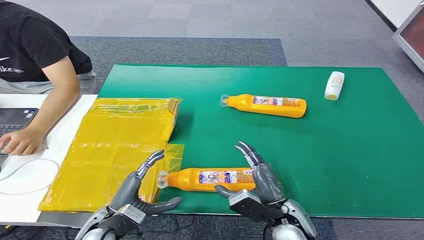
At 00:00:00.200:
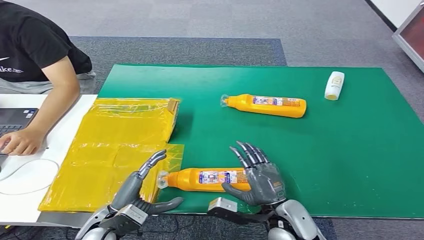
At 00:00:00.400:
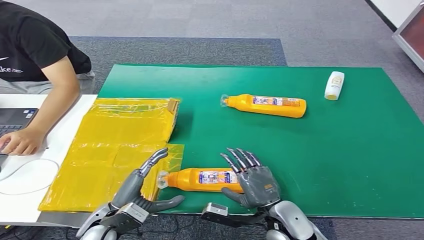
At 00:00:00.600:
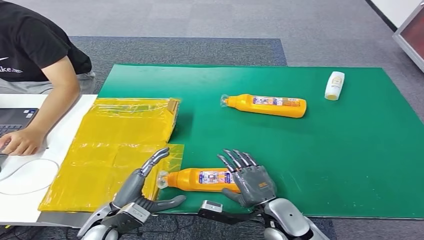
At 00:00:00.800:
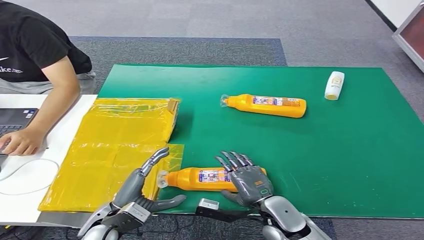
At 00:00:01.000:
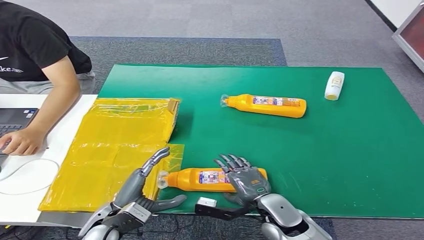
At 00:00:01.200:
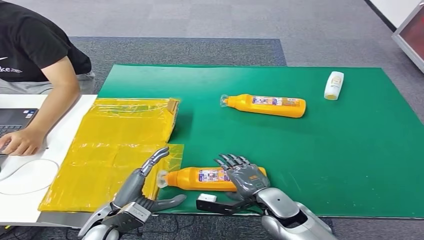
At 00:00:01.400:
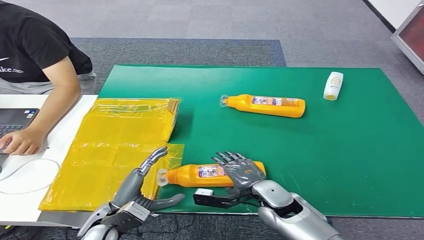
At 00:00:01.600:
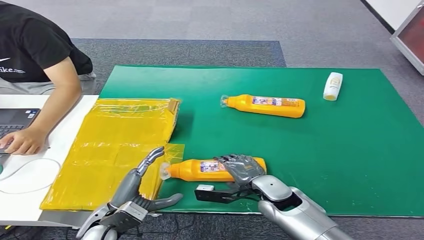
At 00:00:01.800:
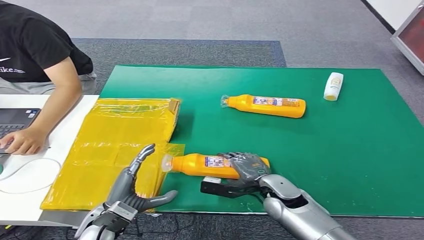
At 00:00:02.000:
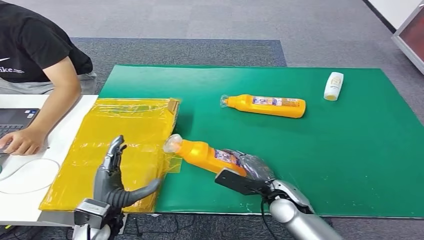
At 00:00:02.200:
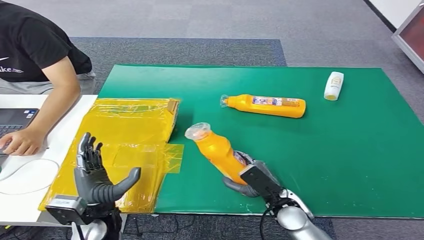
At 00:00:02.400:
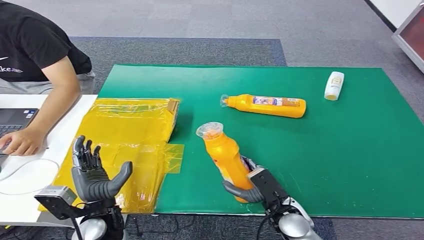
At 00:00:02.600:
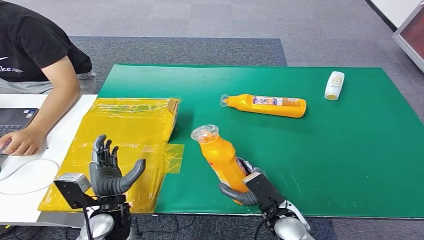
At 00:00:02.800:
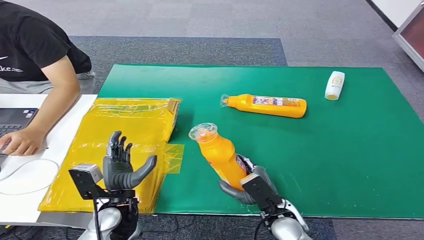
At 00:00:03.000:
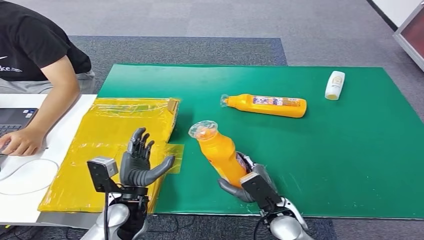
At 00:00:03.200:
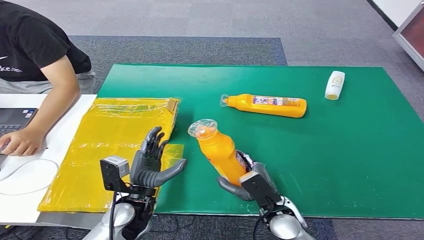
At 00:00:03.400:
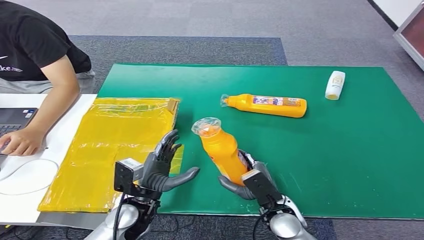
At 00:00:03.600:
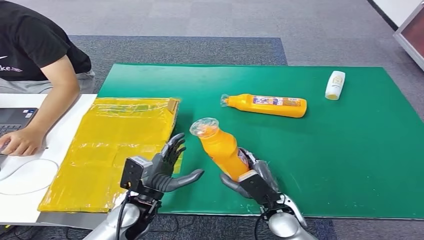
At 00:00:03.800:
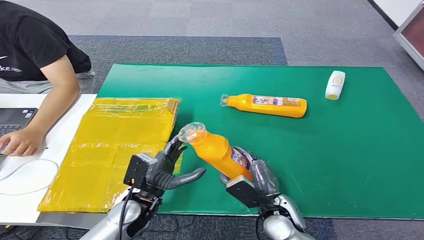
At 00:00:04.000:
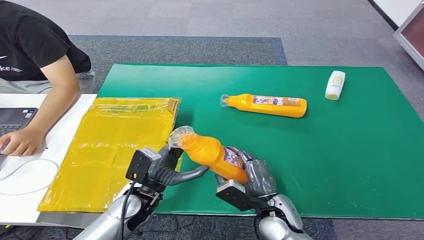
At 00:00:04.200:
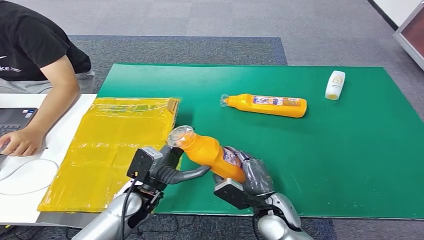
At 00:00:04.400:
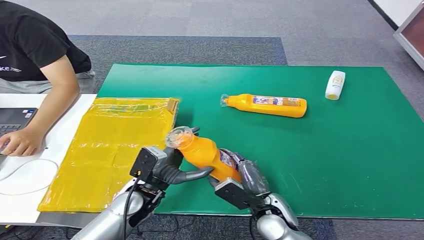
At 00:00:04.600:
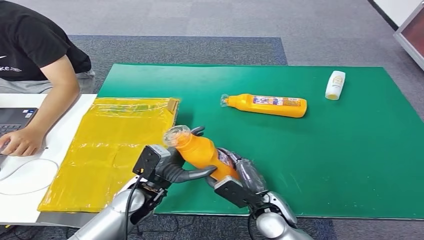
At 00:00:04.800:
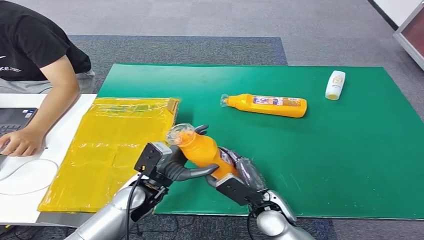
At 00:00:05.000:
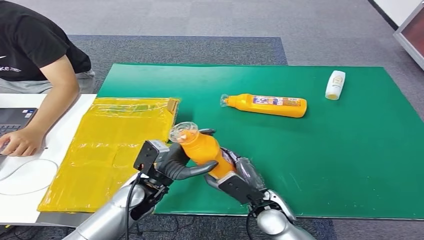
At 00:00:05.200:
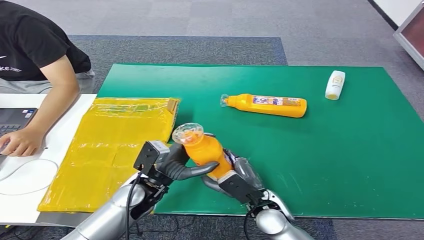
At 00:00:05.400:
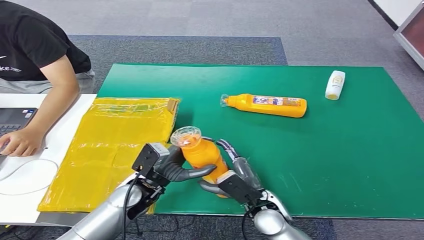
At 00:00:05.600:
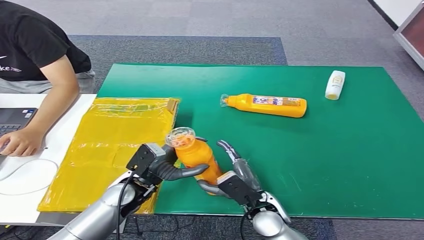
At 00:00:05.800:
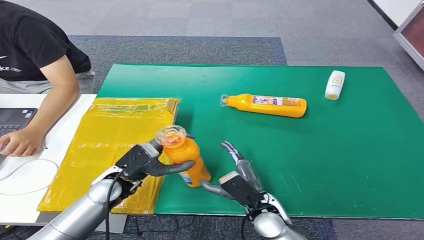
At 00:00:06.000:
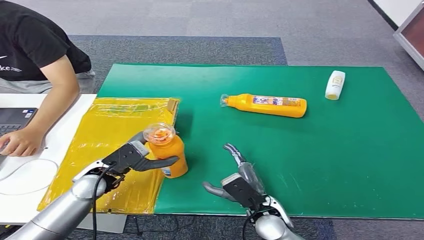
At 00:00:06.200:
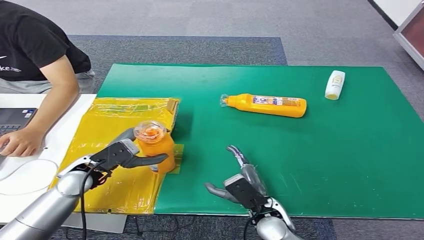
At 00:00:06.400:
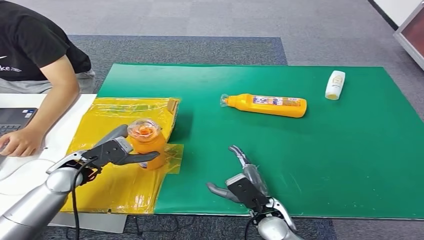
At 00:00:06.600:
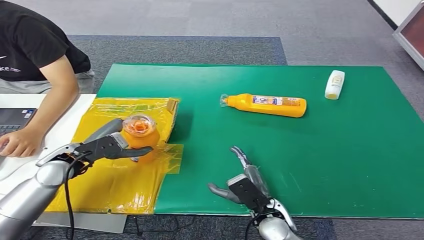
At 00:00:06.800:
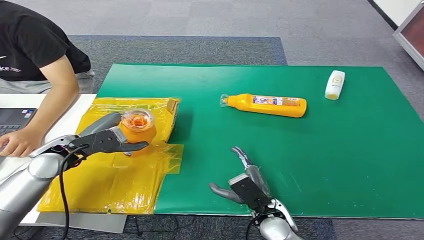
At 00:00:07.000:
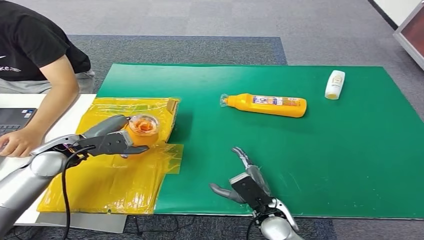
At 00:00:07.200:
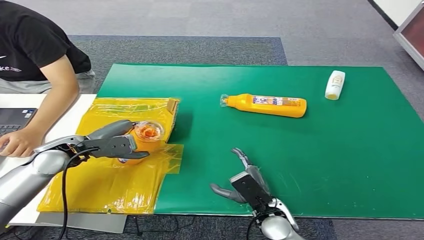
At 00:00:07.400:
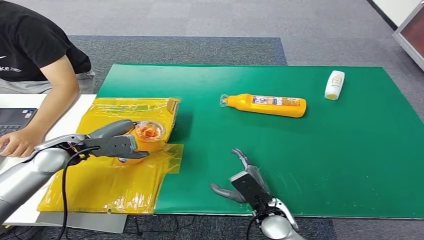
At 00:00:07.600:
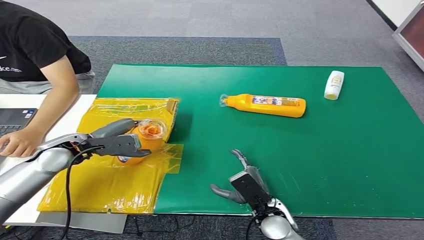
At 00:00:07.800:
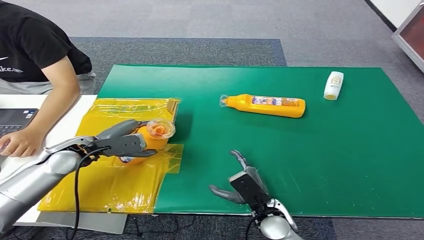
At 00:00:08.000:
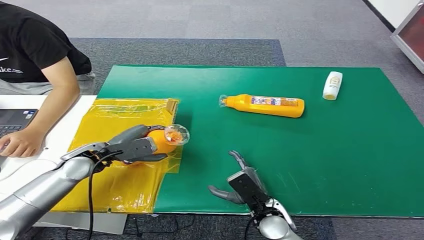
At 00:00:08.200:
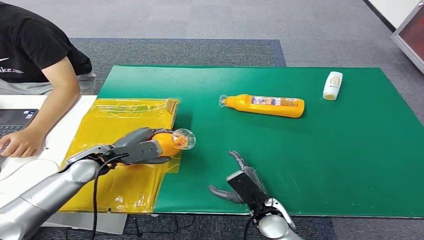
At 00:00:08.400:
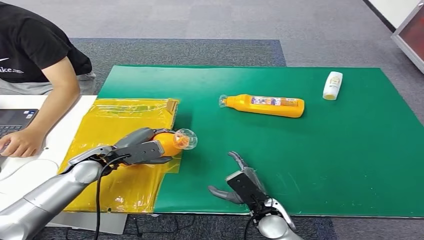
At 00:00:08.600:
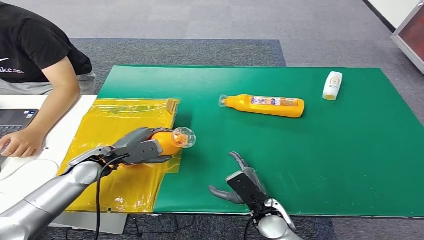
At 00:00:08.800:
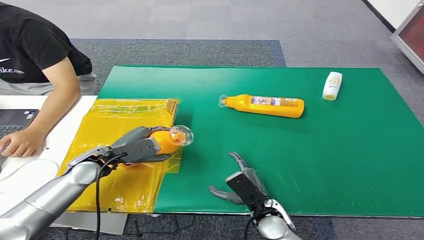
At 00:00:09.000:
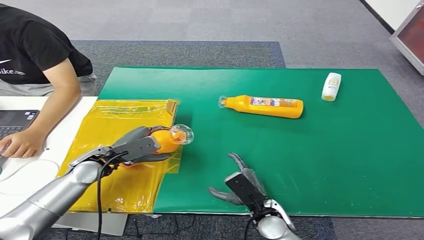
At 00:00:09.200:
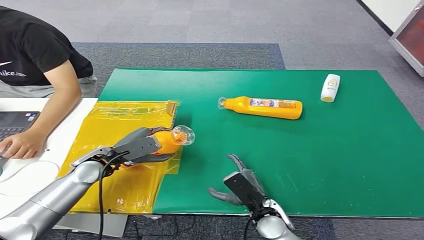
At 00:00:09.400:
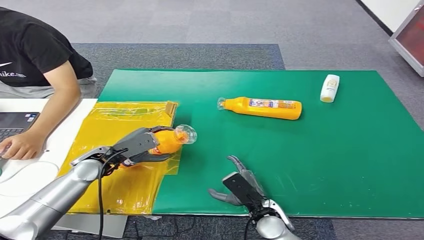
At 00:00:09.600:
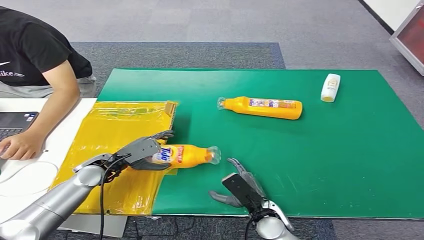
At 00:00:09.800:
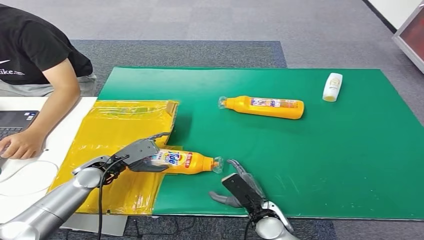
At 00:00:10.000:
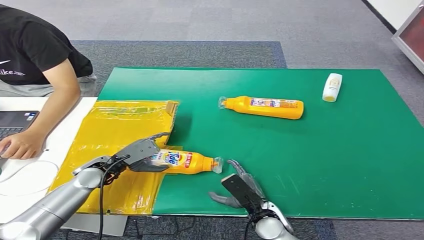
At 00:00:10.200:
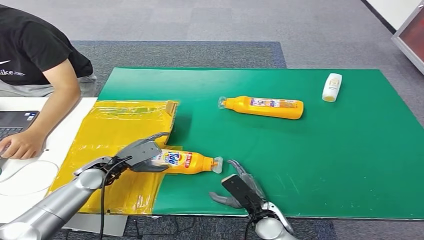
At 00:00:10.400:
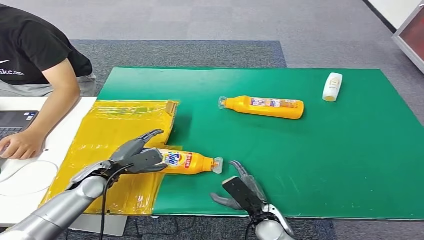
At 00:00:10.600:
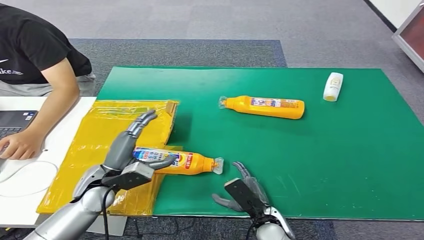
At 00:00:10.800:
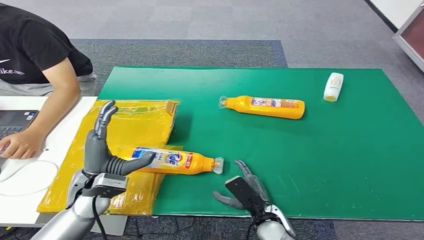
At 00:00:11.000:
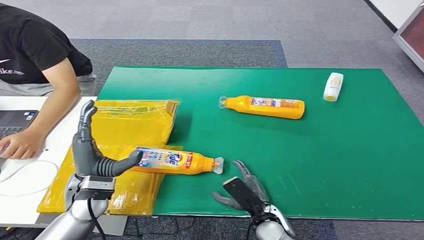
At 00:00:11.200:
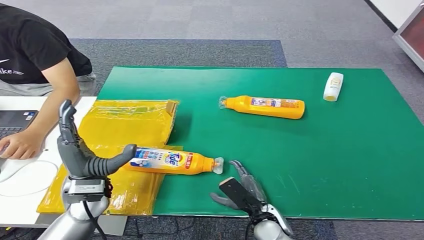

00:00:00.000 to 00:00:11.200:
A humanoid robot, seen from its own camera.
Step, 00:00:00.000 to 00:00:03.200: Pick up the bottle from the table.
Step, 00:00:03.600 to 00:00:11.200: Turn the bottle to the front side.
00:00:01.600 to 00:00:03.200: The left hand goes approximately 5 cm to the right. The right hand goes roughly 5 cm backward.
00:00:04.800 to 00:00:06.400: The left hand goes some 15 cm to the left.
00:00:09.600 to 00:00:11.200: The left hand goes approximately 10 cm backward and upward.
